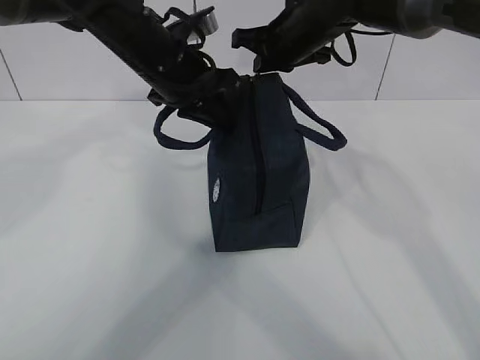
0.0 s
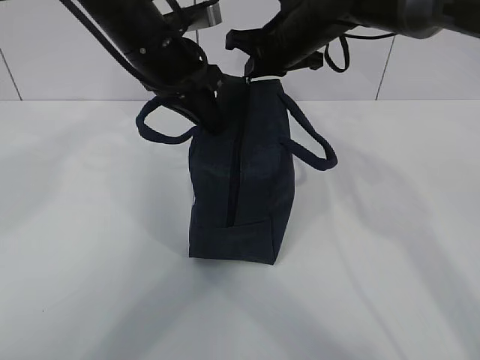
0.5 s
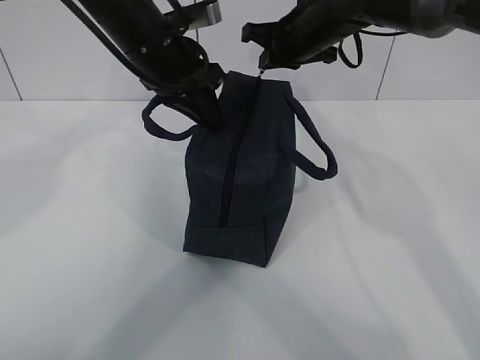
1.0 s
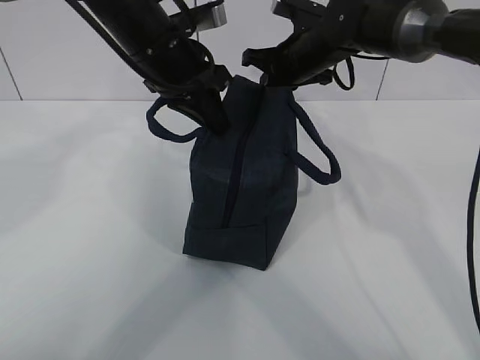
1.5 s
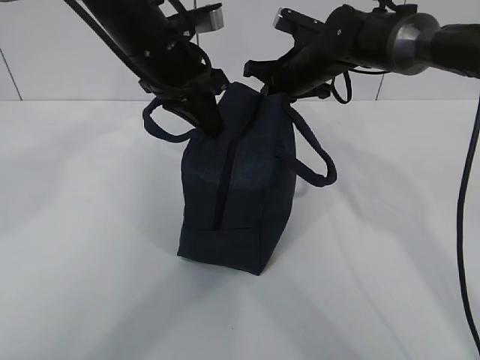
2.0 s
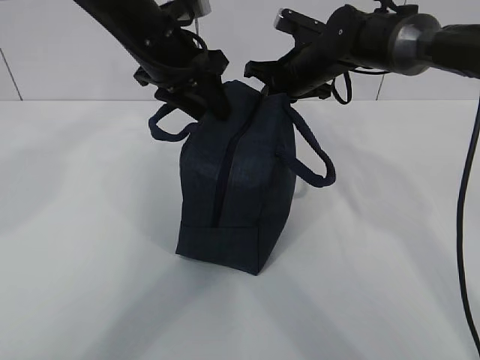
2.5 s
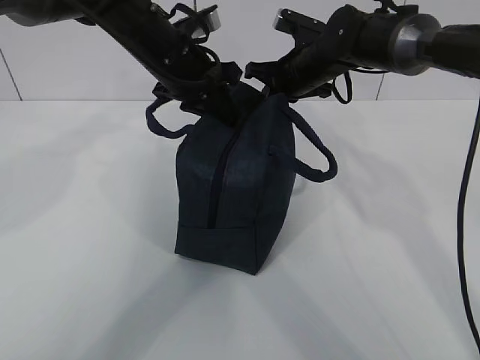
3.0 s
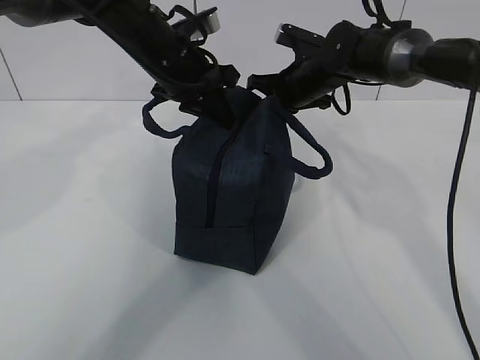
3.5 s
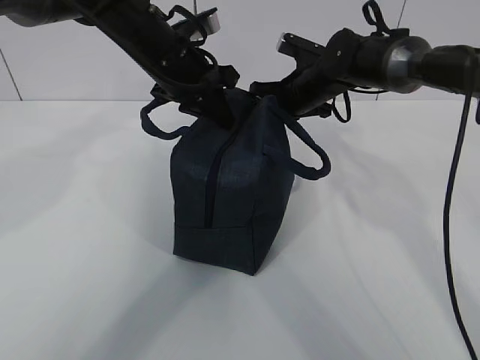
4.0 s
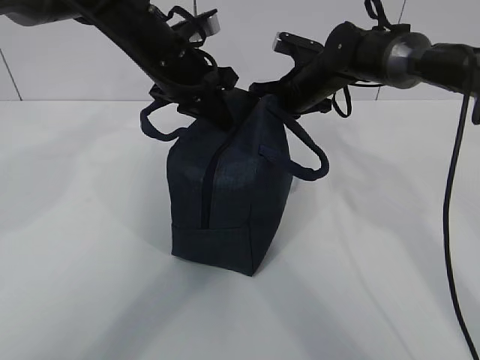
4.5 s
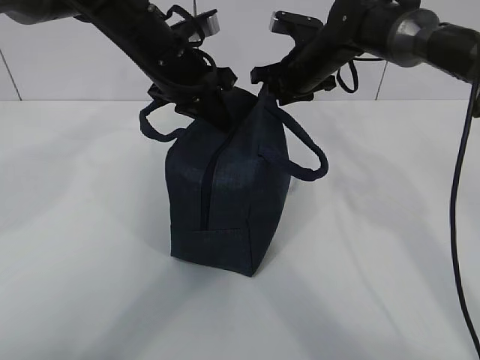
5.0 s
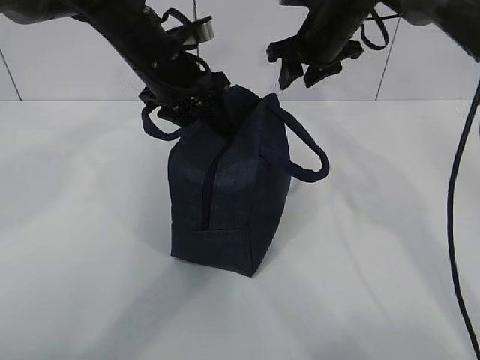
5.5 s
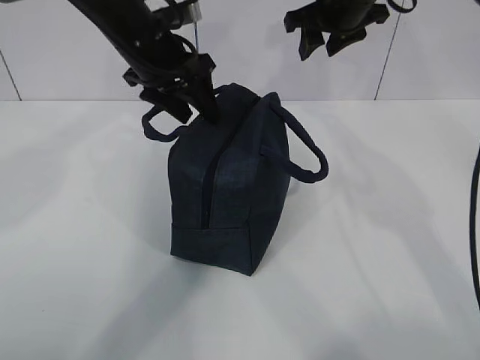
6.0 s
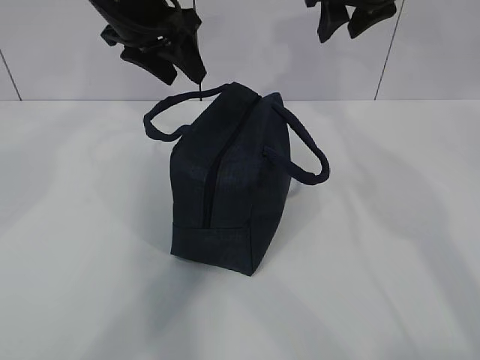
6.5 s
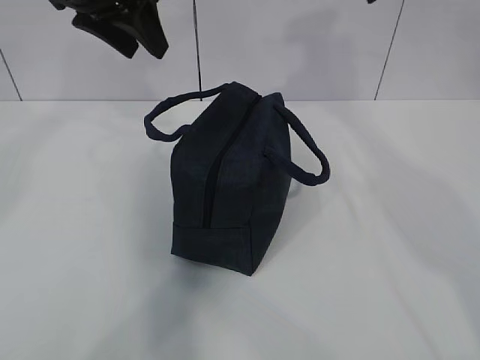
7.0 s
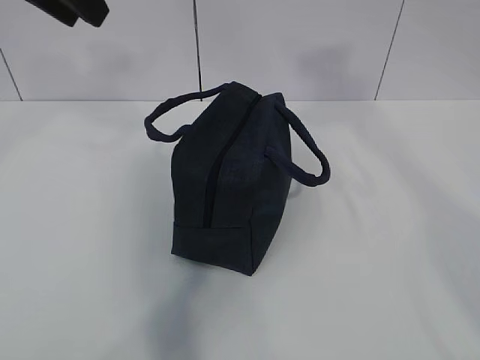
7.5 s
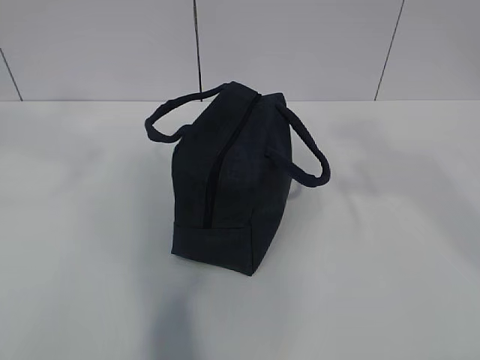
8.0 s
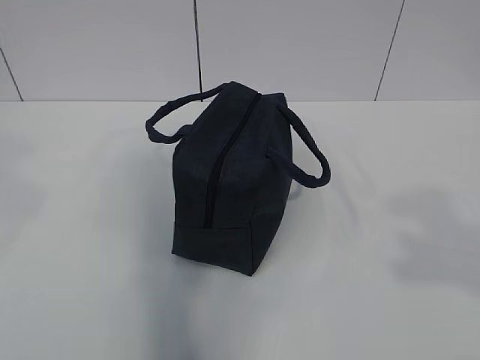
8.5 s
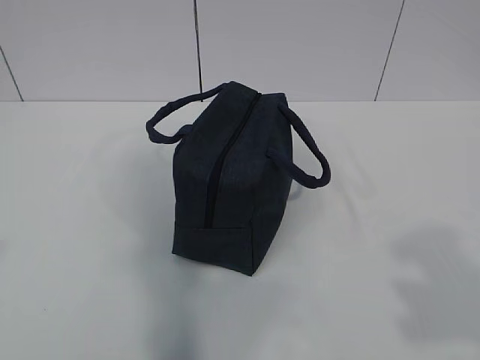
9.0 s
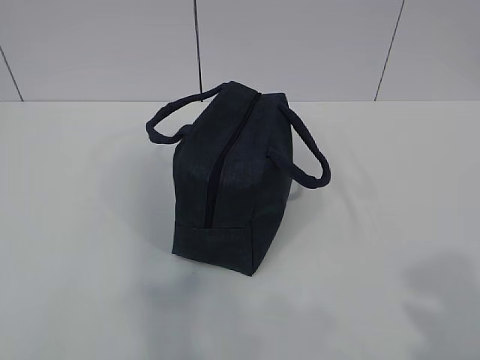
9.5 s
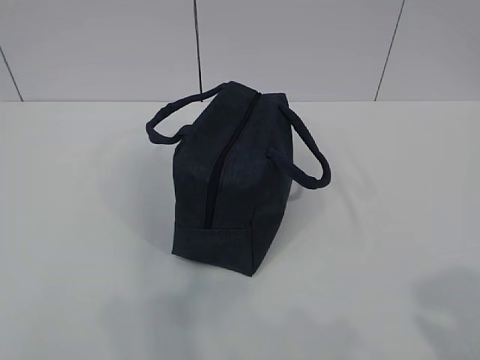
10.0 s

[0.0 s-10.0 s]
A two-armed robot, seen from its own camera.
0.0 to 2.0 s: The right gripper heads downward, covering roughly 5 cm.
2.0 to 4.0 s: The left gripper opens and closes again.
4.0 to 6.0 s: The left gripper opens. The right gripper goes approximately 15 cm upward, and opens its fingers.
6.0 to 8.0 s: The right gripper shifts approximately 35 cm backward; the left gripper is displaced backward, upward and to the left by some 30 cm, and closes its fingers.
8.0 to 10.0 s: The right gripper travels downward and backward by about 20 cm, while the left gripper shifts some 30 cm backward, downward and to the left.

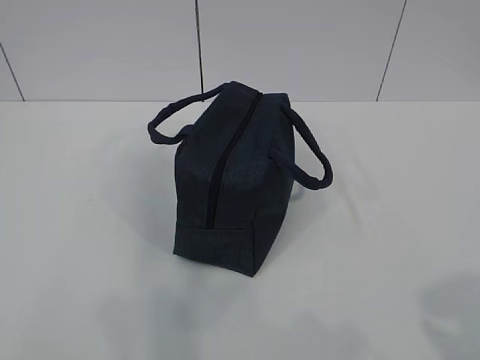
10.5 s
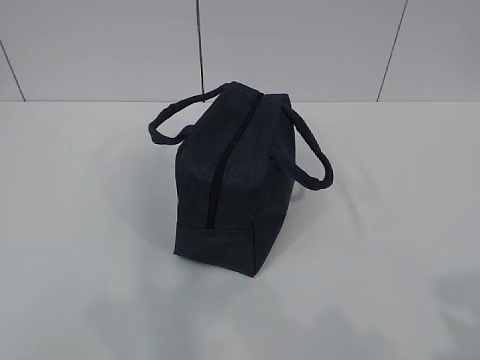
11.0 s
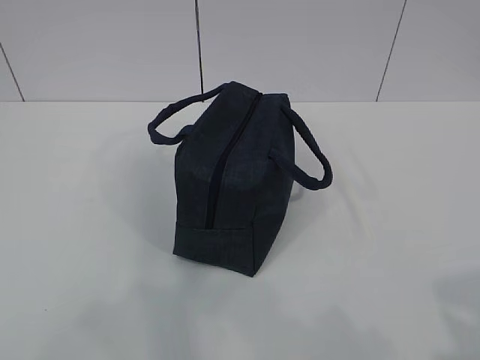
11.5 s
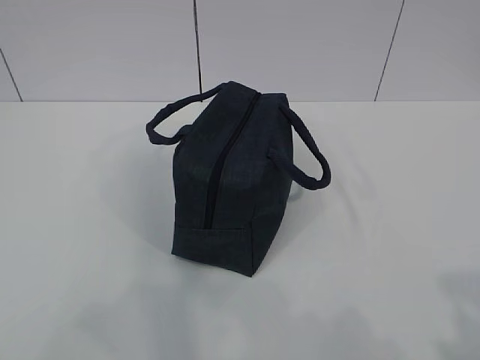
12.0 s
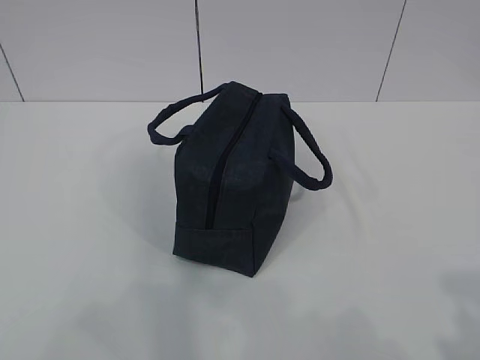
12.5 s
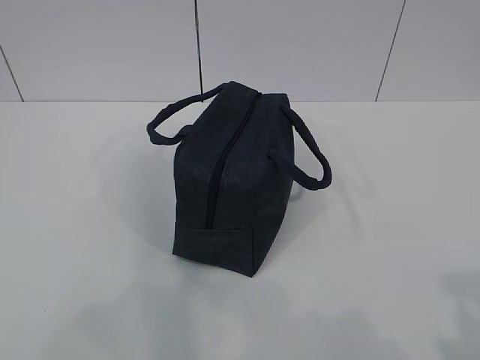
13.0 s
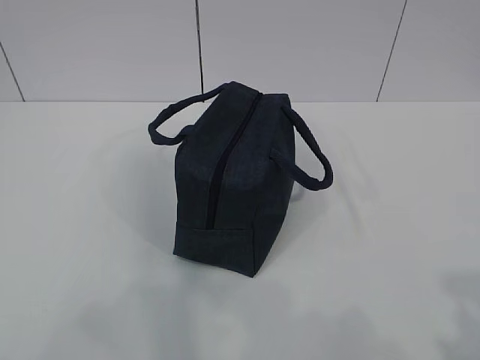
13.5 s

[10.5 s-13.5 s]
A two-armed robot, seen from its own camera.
10.5 to 12.0 s: The grippers stay close to where they were, moving slightly.
12.0 to 13.5 s: The two grippers keep their place.
